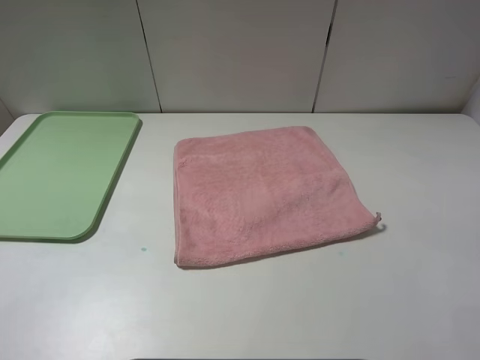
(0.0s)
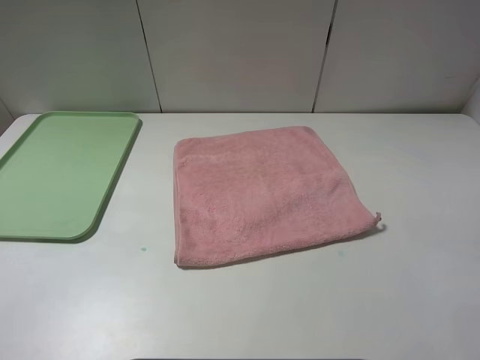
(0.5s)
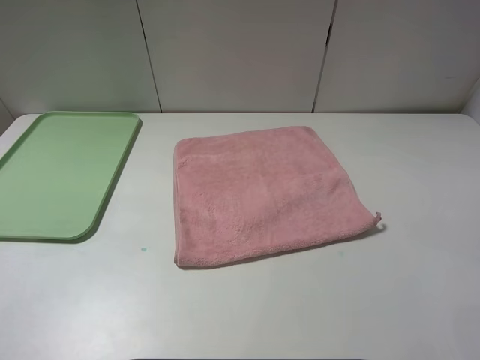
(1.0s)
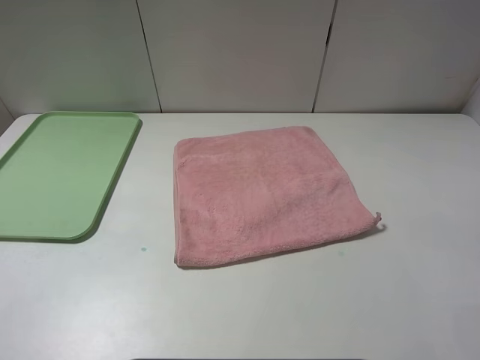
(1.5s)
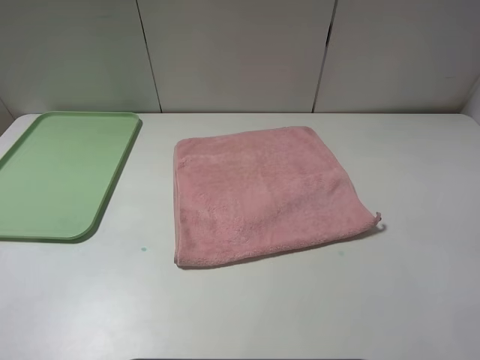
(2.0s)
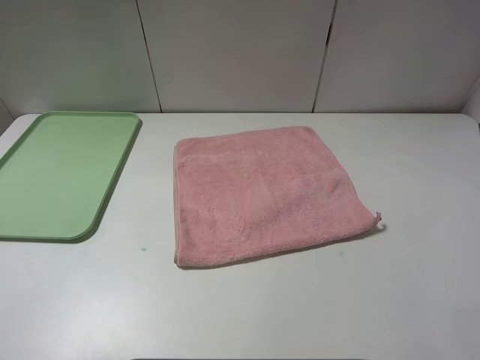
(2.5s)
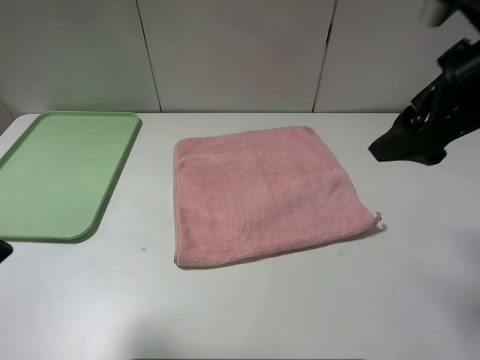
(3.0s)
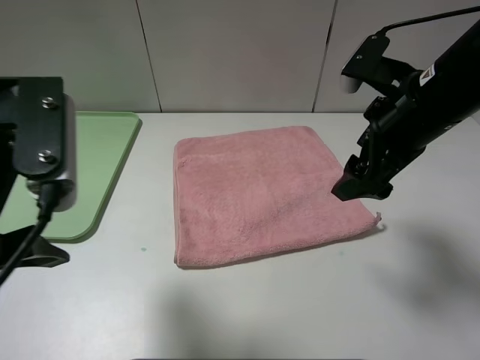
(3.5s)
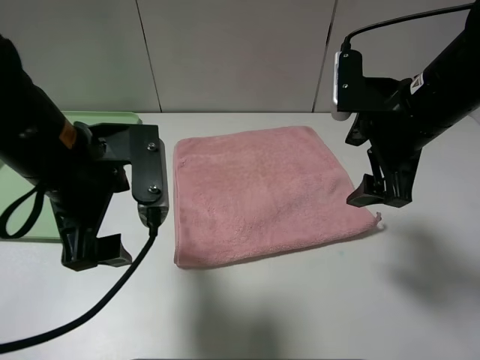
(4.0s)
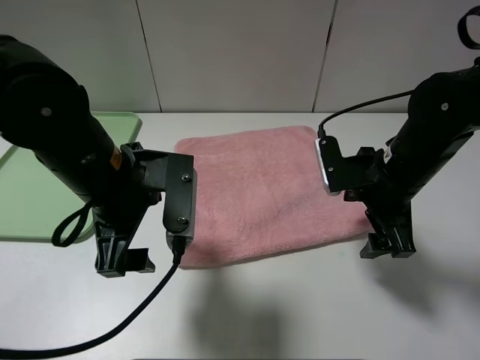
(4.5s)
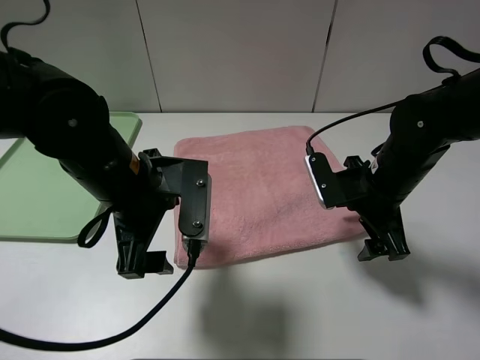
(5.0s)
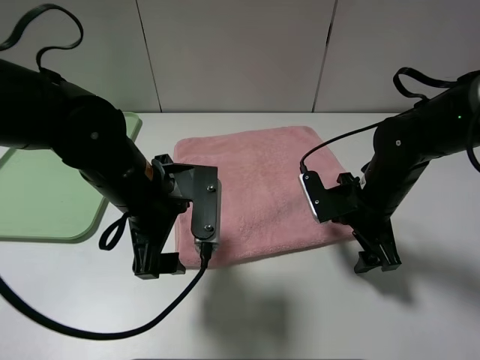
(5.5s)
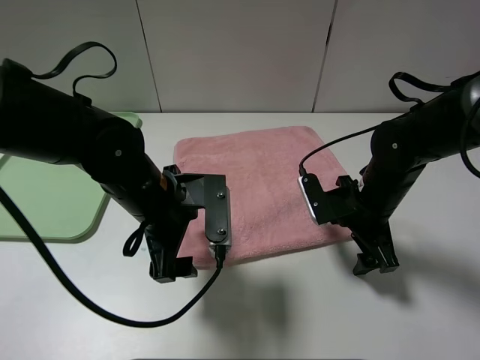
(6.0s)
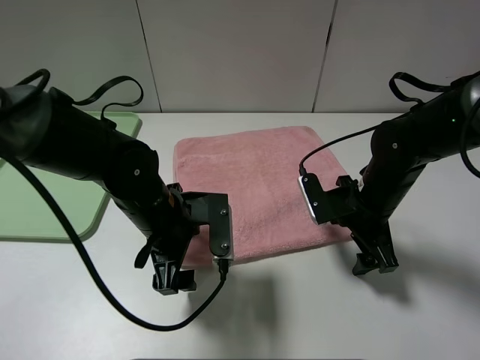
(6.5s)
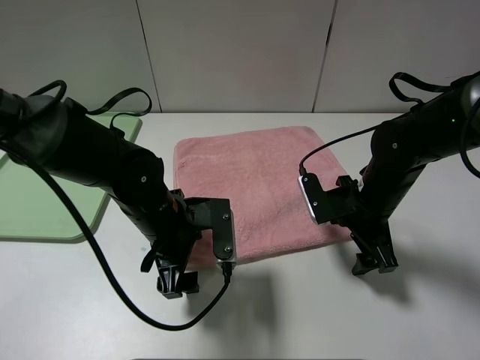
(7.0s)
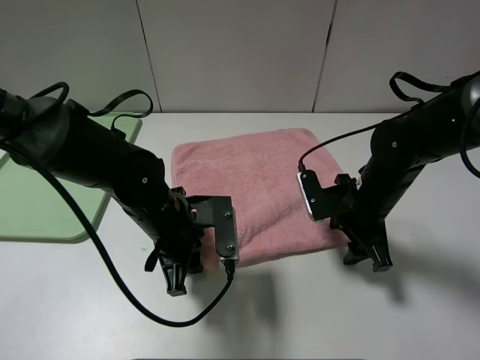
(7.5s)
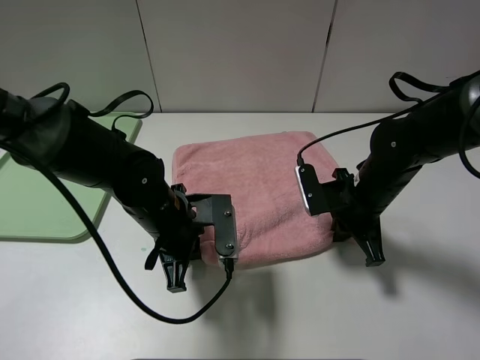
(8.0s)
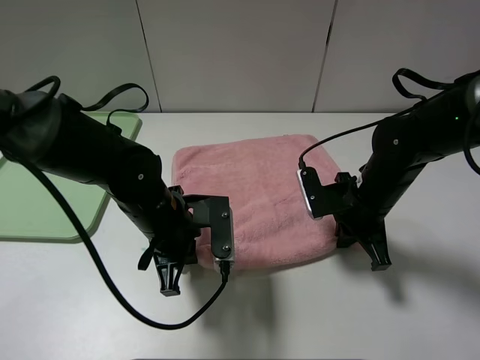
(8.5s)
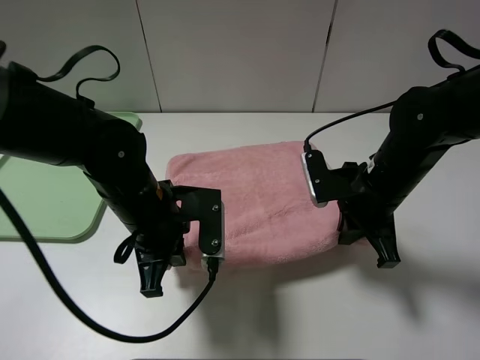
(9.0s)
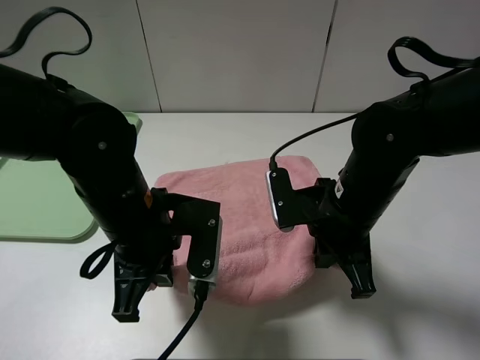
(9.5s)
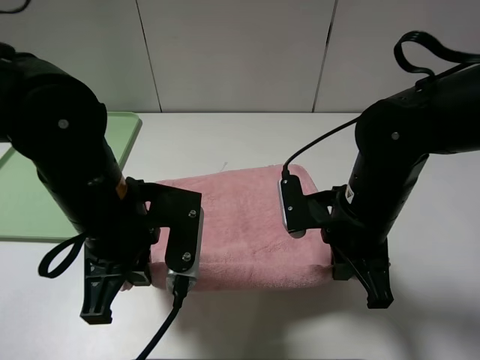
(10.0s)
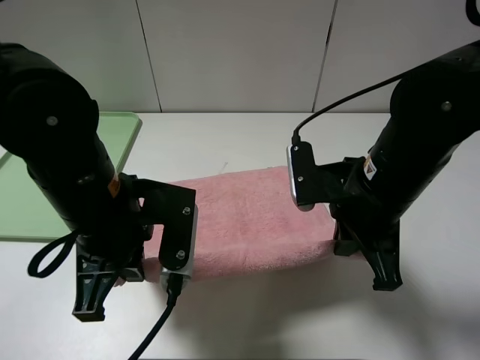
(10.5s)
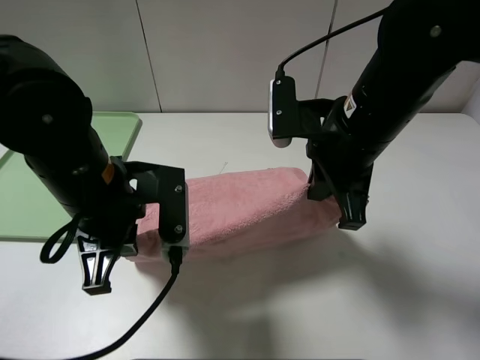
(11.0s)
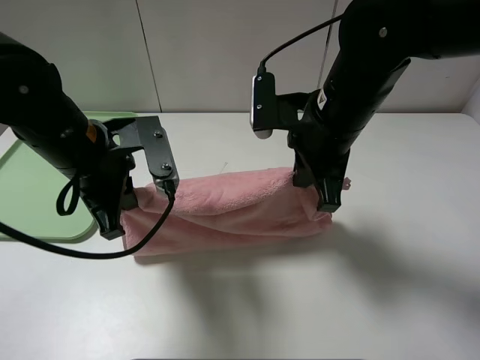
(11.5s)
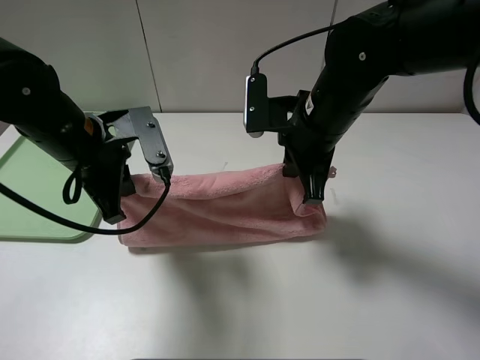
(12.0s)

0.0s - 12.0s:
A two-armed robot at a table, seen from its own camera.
2.0s - 4.0s: The right gripper heads forward and to the left, covering roughly 25 cm, while the left gripper goes approximately 25 cm forward and to the right.
4.0s - 6.0s: The left gripper goes some 10 cm downward and to the right. The right gripper heads downward, covering some 15 cm.
6.0s - 8.0s: The left gripper closes; the right gripper closes.
8.0s - 10.0s: The left gripper moves upward and backward, some 10 cm; the right gripper travels backward and upward by some 10 cm.
10.0s - 12.0s: The left gripper heads forward and to the left, covering some 10 cm. The right gripper shifts approximately 10 cm forward.

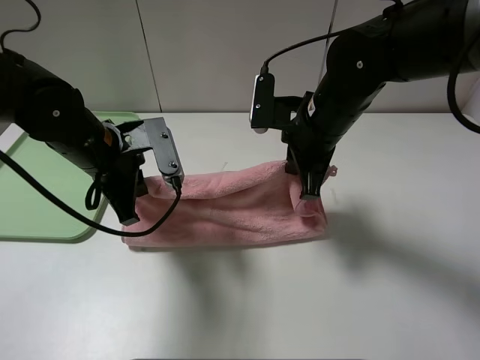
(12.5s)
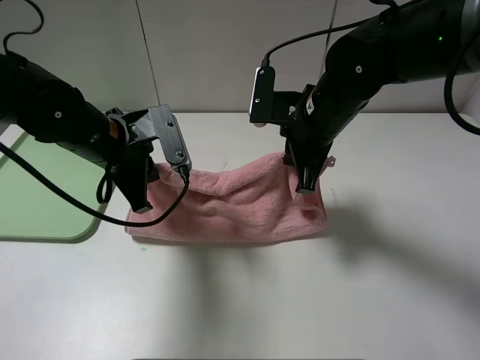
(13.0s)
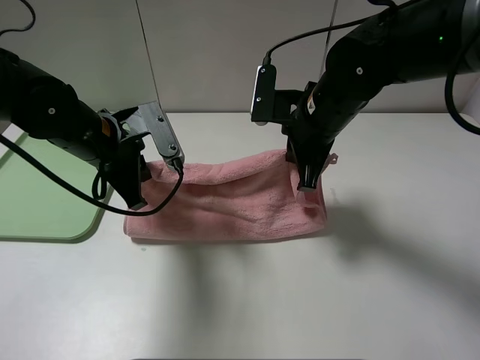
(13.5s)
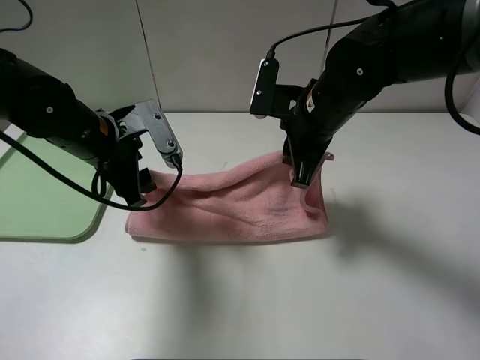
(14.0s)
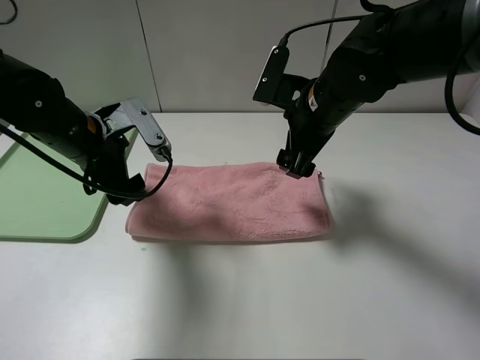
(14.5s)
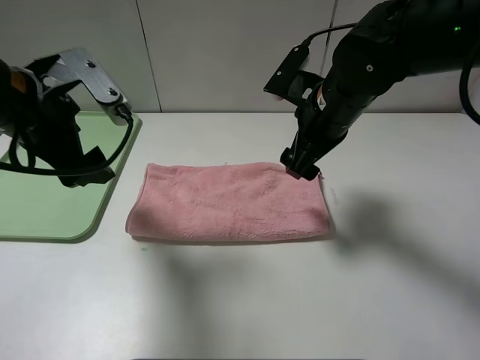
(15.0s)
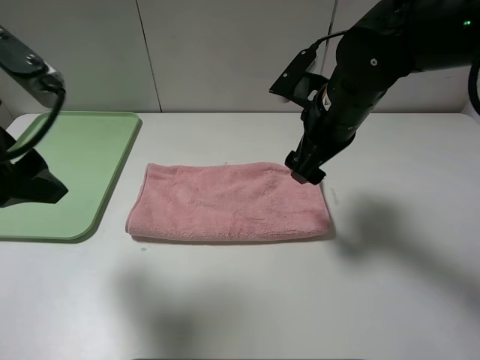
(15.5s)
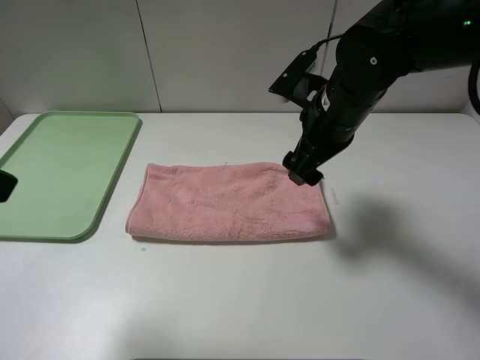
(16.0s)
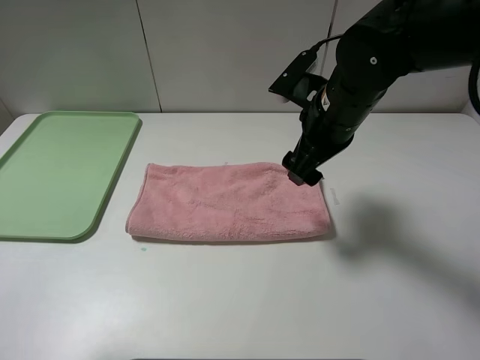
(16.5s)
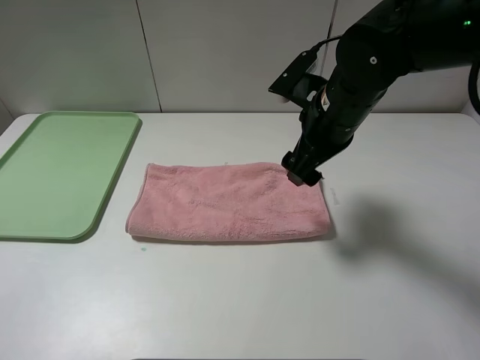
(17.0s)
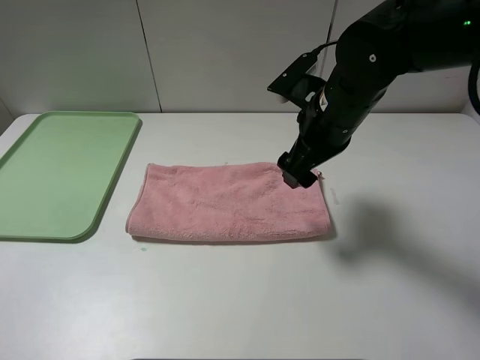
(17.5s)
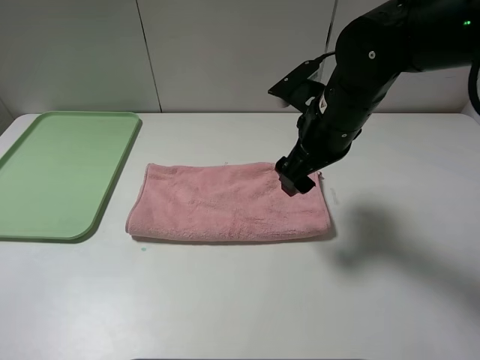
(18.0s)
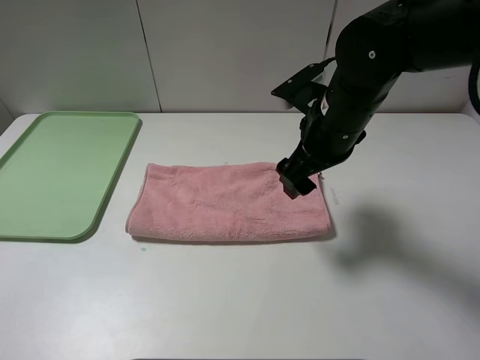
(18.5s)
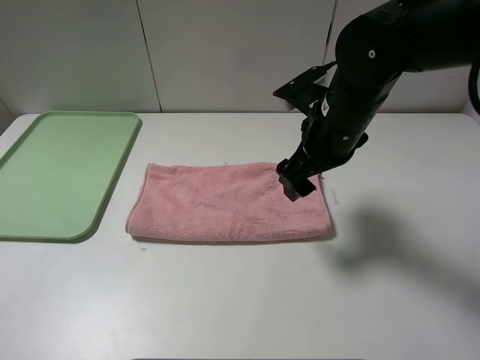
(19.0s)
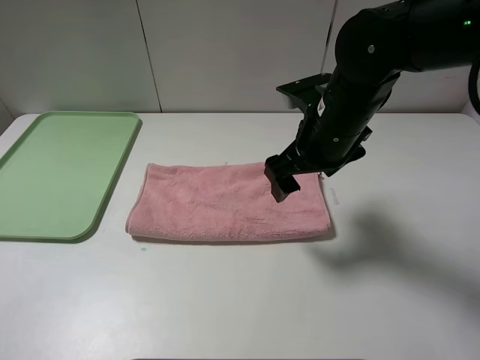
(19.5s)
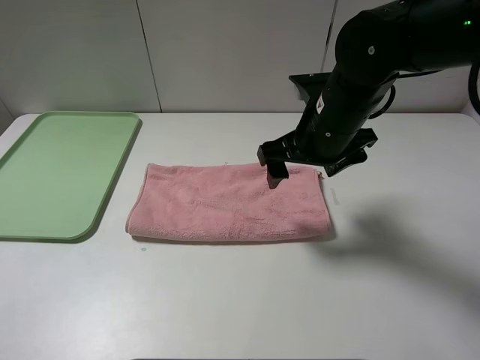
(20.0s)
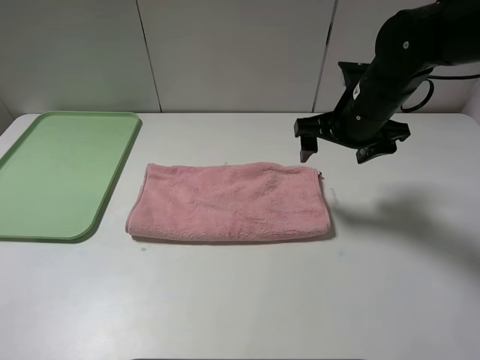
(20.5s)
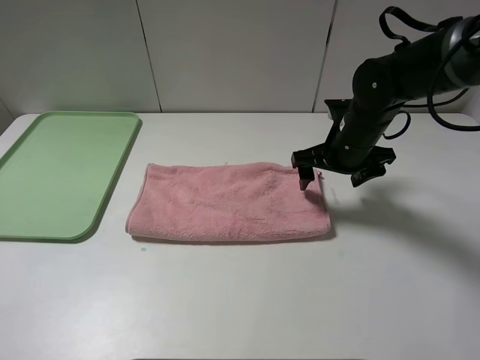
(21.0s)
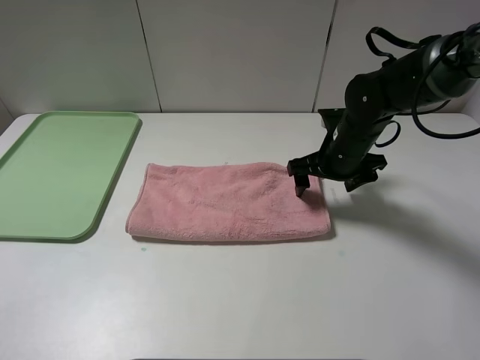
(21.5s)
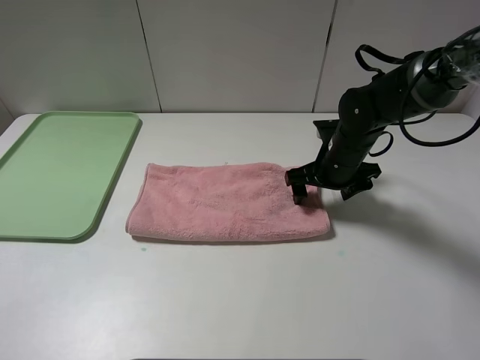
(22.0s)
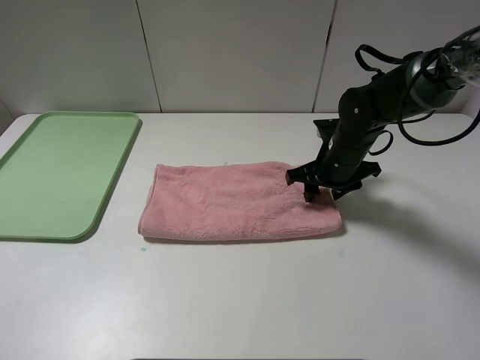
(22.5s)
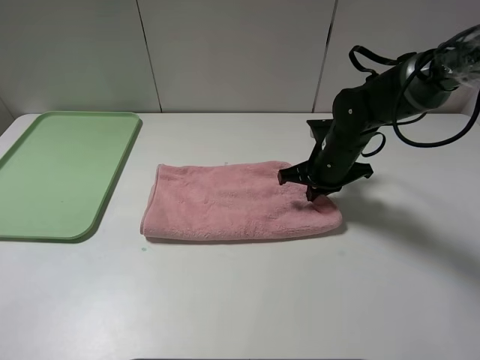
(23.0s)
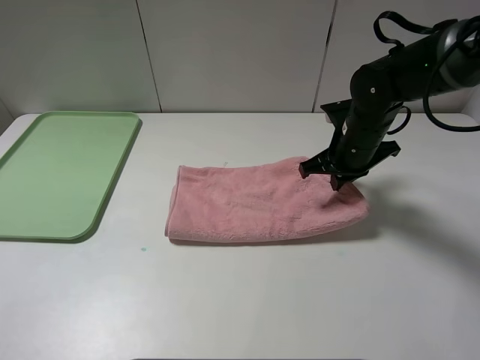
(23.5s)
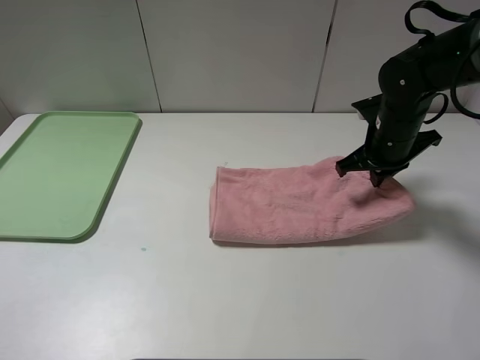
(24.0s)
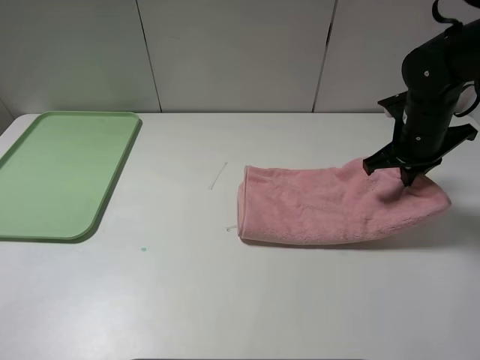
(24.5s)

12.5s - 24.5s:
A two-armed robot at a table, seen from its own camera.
Step, 12.5s - 14.5s: Fold the pink towel upwards.
12.5s - 14.5s: The left gripper opens up, while the right gripper opens.
14.5s - 16.5s: The left gripper goes about 30 cm backward, upward and to the left.
16.5s - 18.5s: The left gripper shifts roughly 10 cm backward and downward.
18.5s - 20.5s: The right gripper heads to the right, covering about 5 cm.
20.5s - 22.5s: The right gripper heads downward, covering roughly 10 cm, and closes up.
22.5s - 24.5s: The right gripper shifts some 10 cm to the right and upward, and closes up.

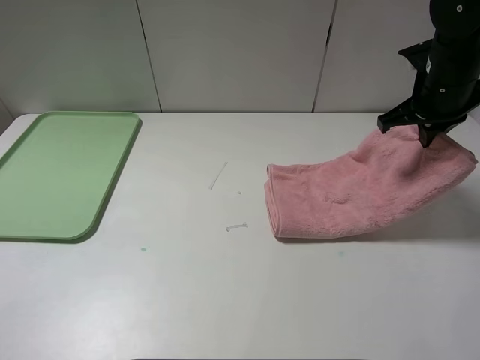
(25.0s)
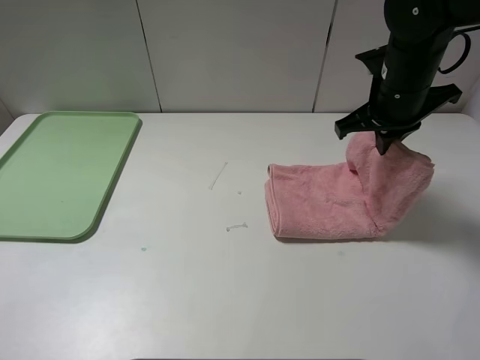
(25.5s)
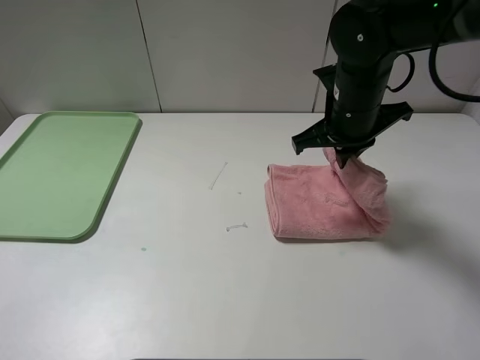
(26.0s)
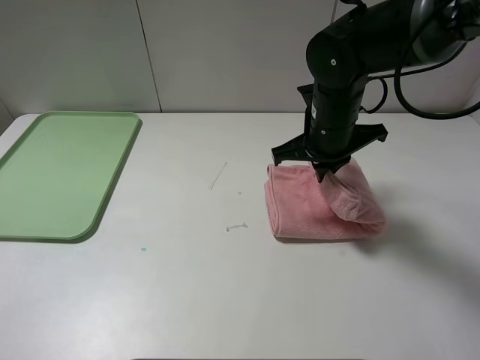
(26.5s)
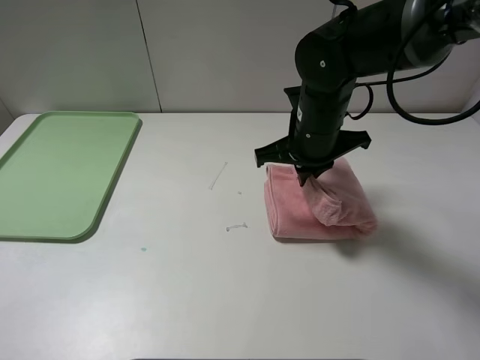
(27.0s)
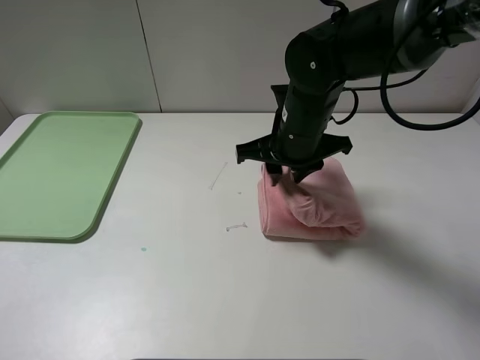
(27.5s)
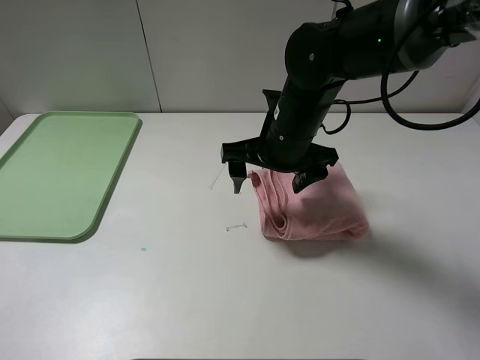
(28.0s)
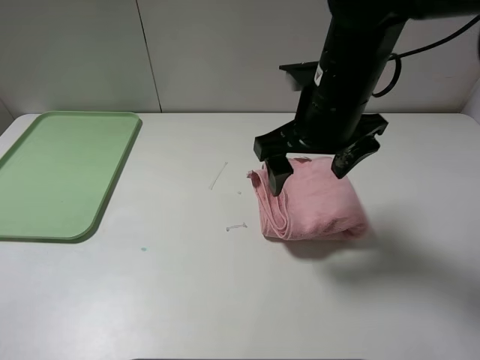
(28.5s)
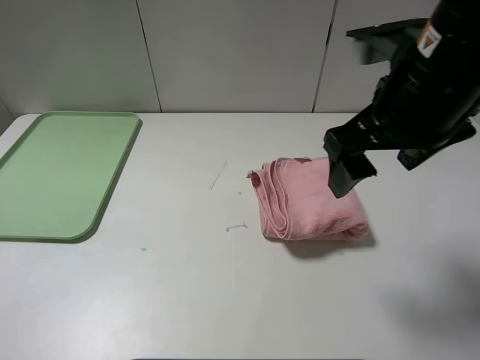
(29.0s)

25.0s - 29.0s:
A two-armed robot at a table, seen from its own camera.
Step, 25.0s - 27.5s: Fold the pink towel from right to left with right gripper.
25.0s - 27.0s: The right gripper is displaced to the left by some 15 cm.
27.0s - 29.0s: The right gripper moves upward, backward and to the right, about 20 cm, and opens.
